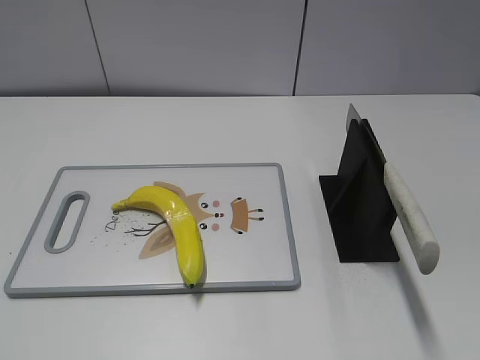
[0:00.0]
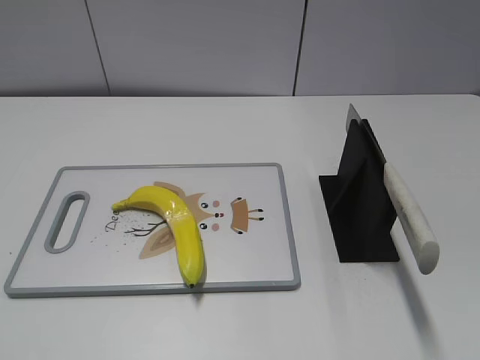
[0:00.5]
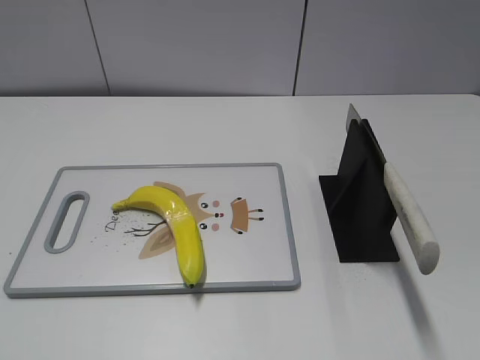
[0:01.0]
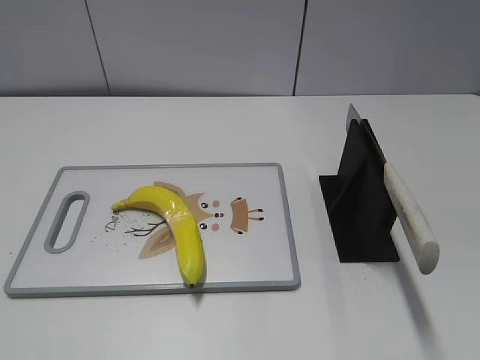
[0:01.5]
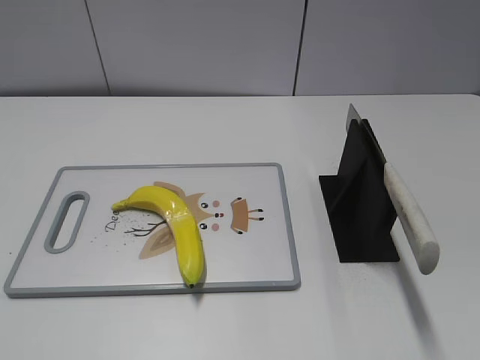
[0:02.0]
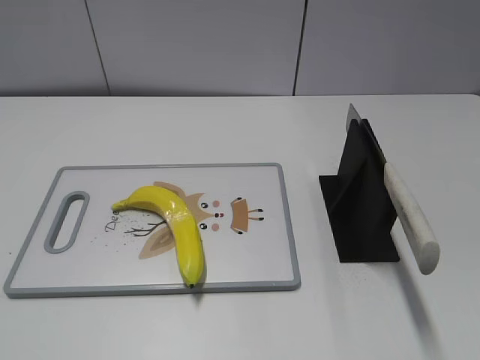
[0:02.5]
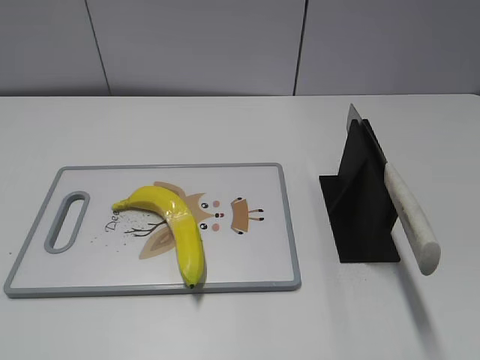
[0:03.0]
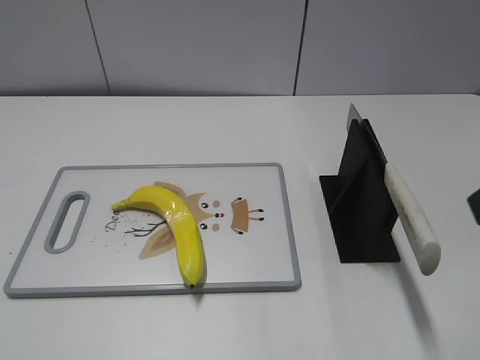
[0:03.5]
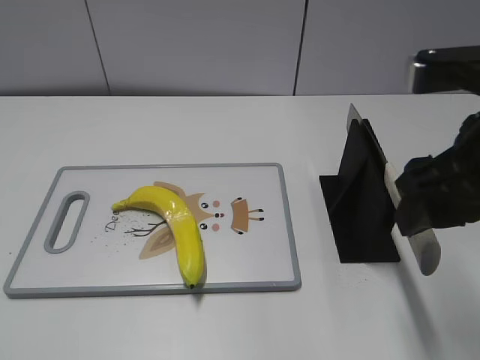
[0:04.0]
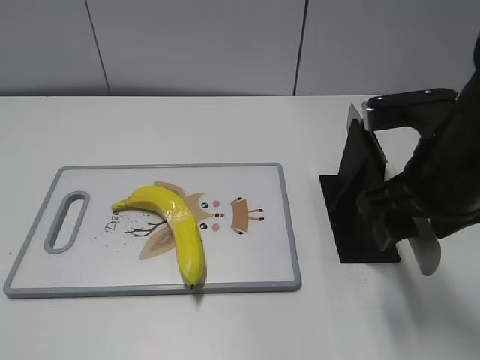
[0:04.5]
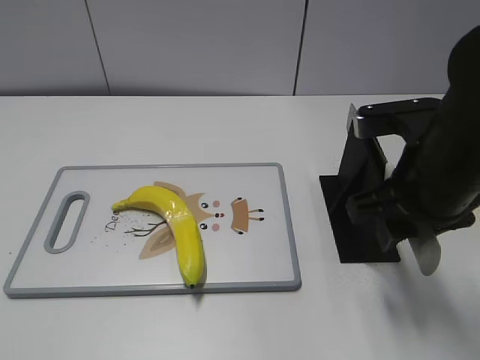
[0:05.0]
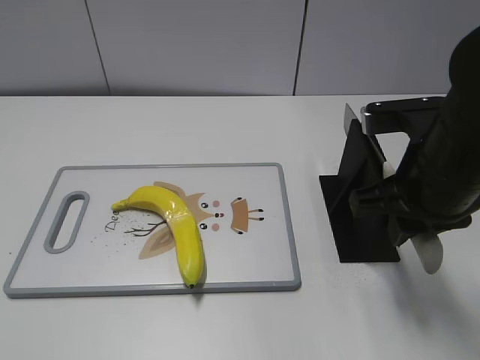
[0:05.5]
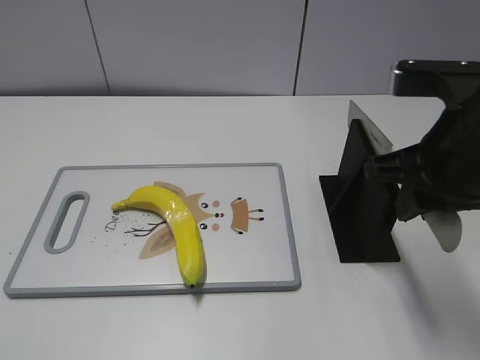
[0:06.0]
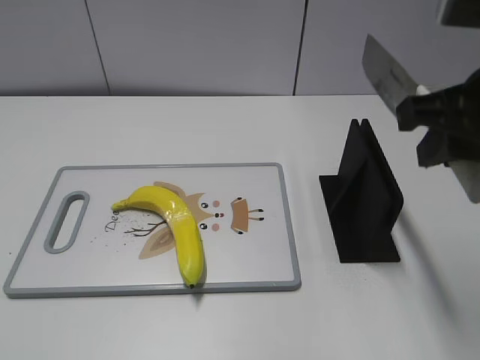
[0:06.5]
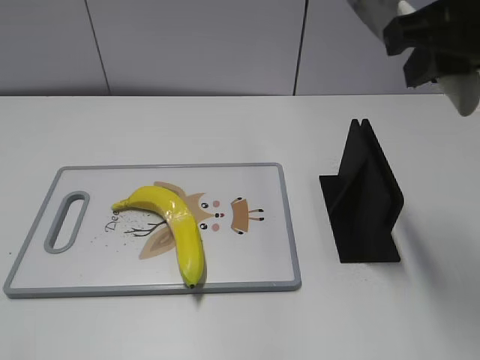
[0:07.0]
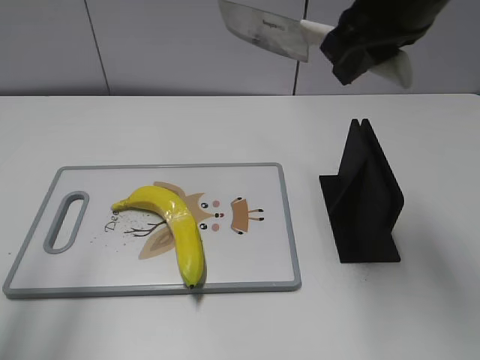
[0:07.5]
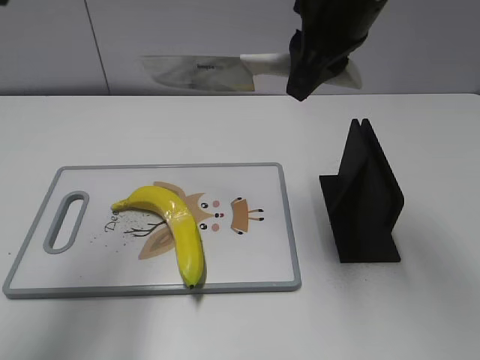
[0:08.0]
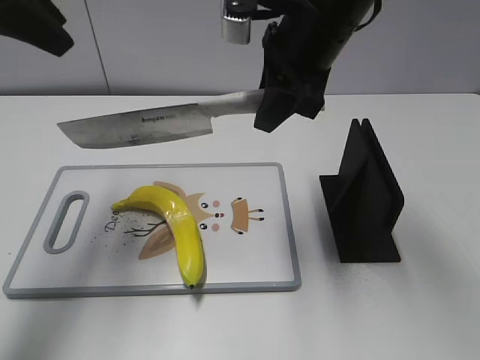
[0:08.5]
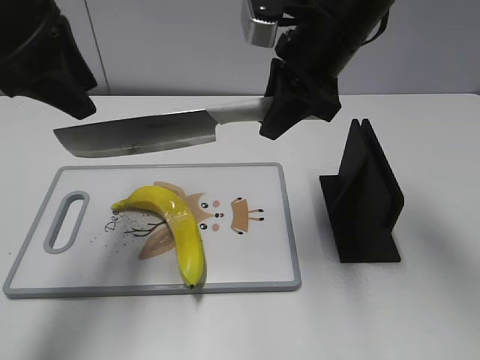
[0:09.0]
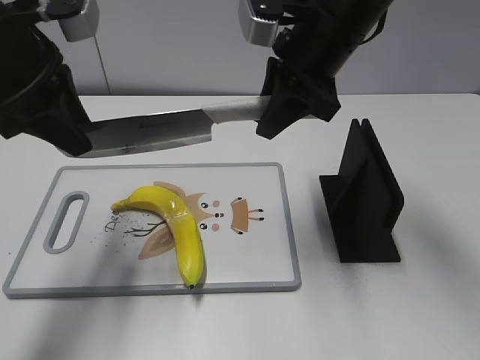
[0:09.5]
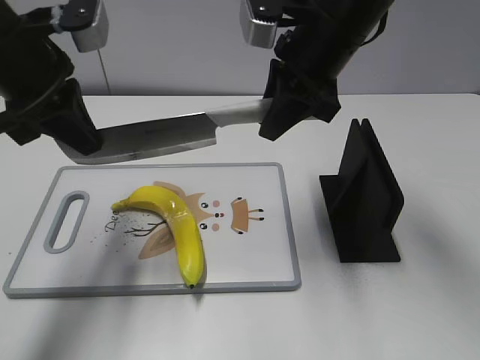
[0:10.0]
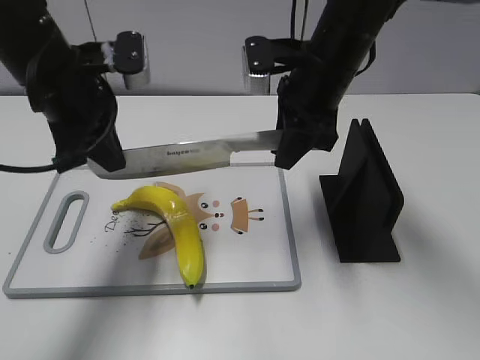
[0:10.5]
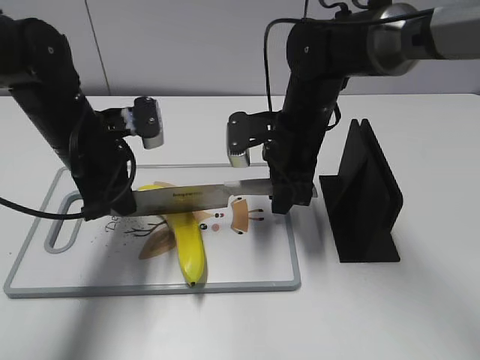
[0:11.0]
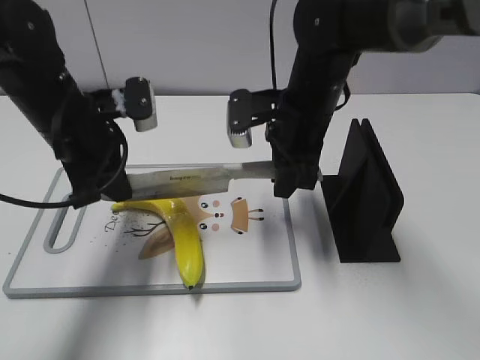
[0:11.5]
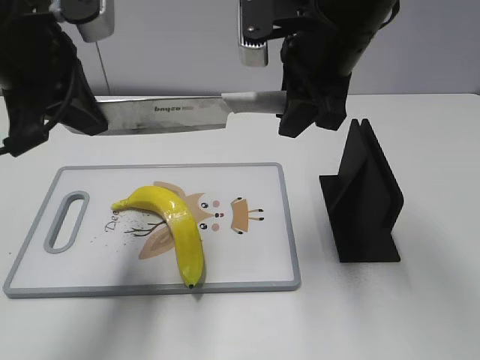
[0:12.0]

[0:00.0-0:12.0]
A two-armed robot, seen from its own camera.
Task of the whole recording: cut plastic banana.
Step, 0:00.0 to 0:06.0: Grab the knife handle with your right hand.
0:02.0 to 0:04.0: The right gripper is displaced forward and to the left by some 25 cm.
0:04.0 to 0:06.0: The right gripper closes.
0:06.0 to 0:08.0: The right gripper moves forward, to the left and upward, some 15 cm. The left gripper goes about 30 cm forward and upward.
0:08.0 to 0:10.0: The left gripper is displaced downward and forward by approximately 15 cm, and closes up; the right gripper ends up roughly 5 cm from where it was.
0:10.0 to 0:12.0: The left gripper goes downward and returns, some 10 cm each way. The right gripper goes downward and returns, some 15 cm each way.

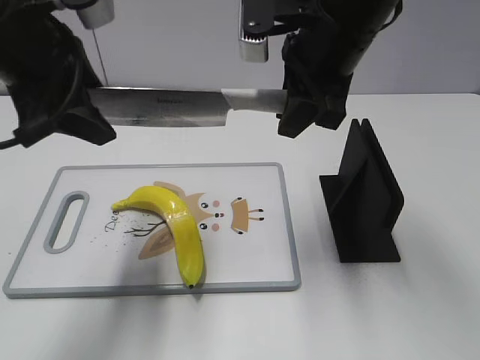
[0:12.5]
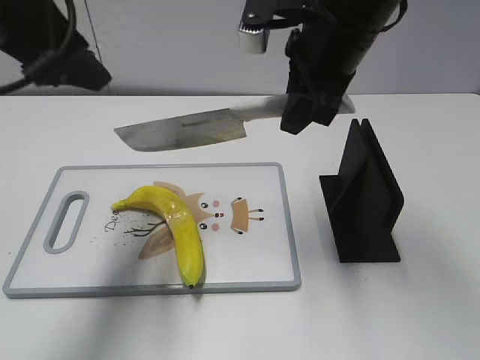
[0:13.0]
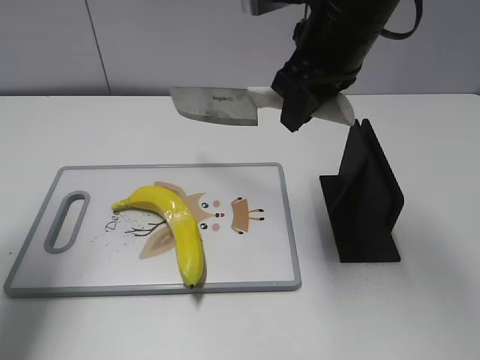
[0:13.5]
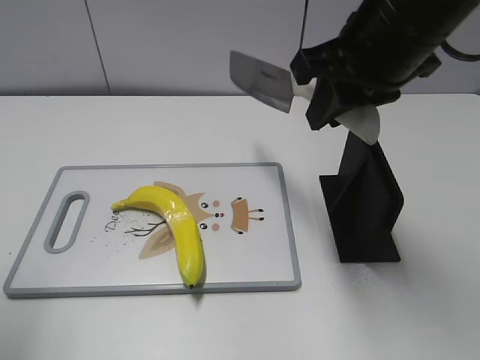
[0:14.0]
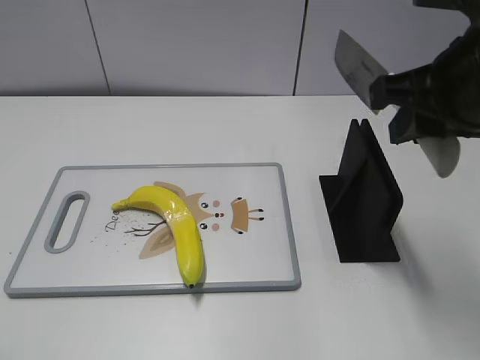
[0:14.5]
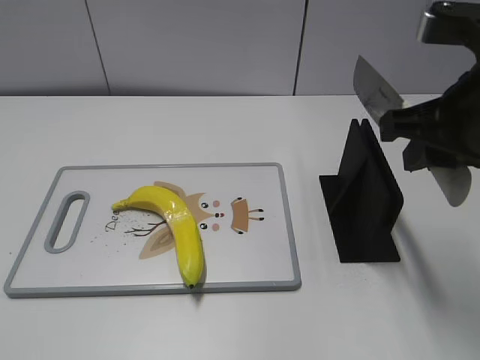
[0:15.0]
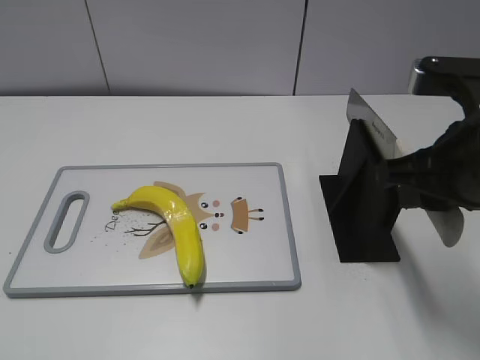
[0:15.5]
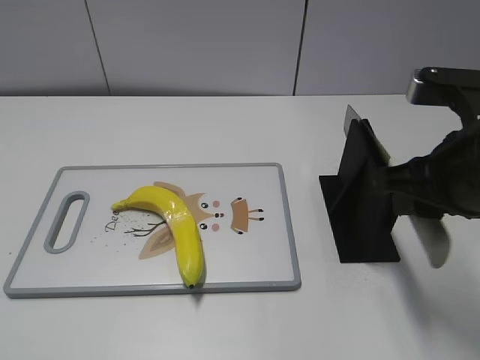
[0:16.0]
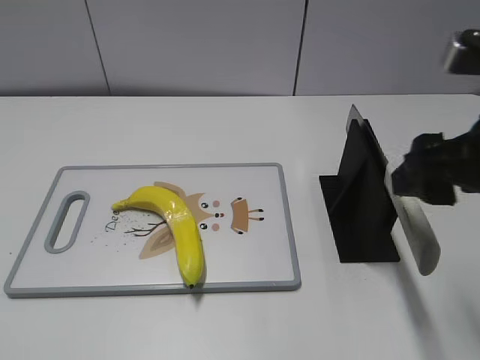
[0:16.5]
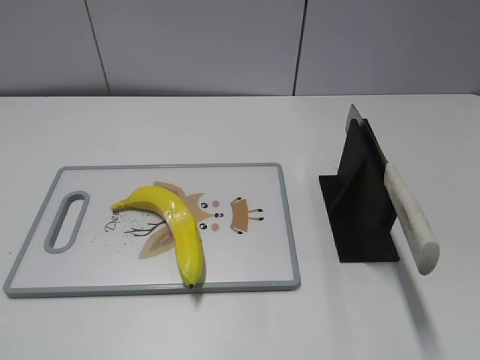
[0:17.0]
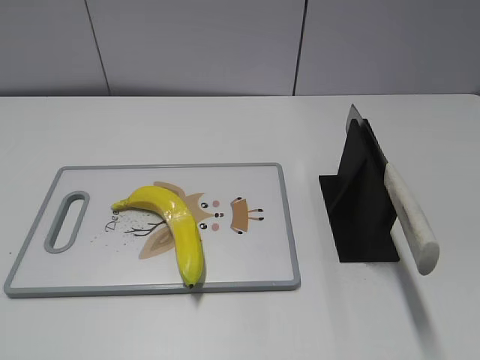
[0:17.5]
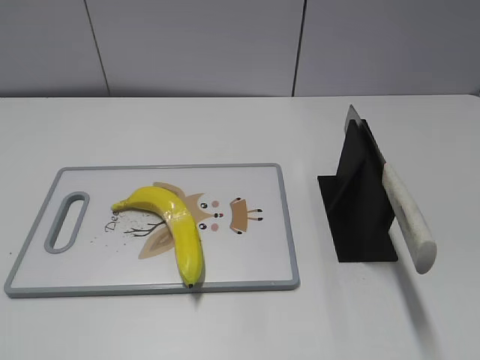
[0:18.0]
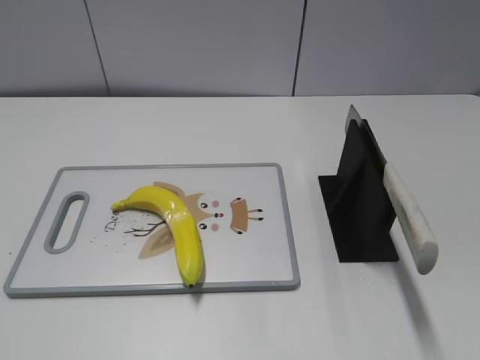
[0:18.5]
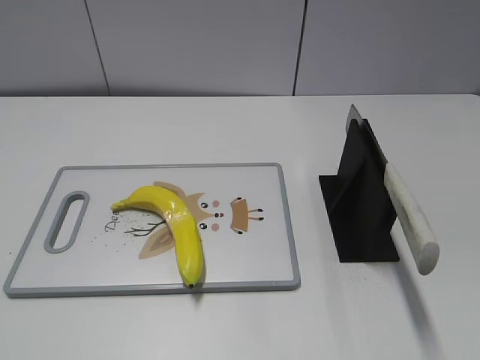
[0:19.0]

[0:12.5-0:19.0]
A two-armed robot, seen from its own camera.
Task of the whole recording: cut plastic banana.
Step, 0:14.0 to 0:14.5: Lift the knife with your right hand.
Step, 0:15.0 to 0:19.0: Place the knife on the storage rack with your right hand.
0:12.5 to 0:14.5: The left gripper goes about 25 cm backward and to the left. The right gripper is displaced backward and to the right by roughly 15 cm.
0:14.5 to 0:17.0: The right gripper shifts roughly 20 cm backward and to the right, and opens its fingers.

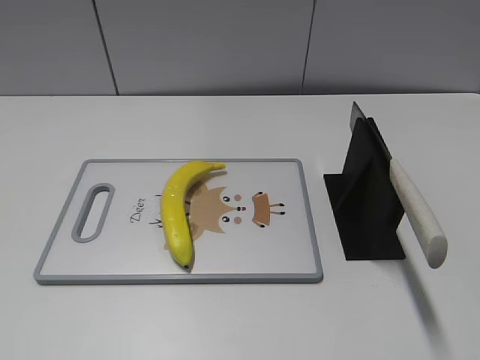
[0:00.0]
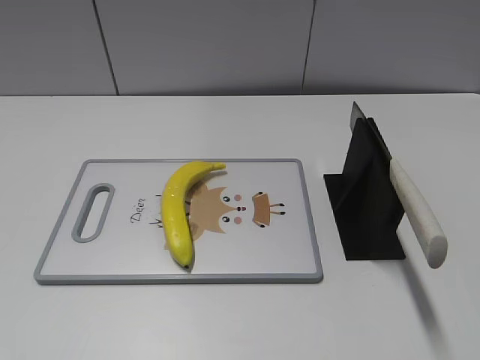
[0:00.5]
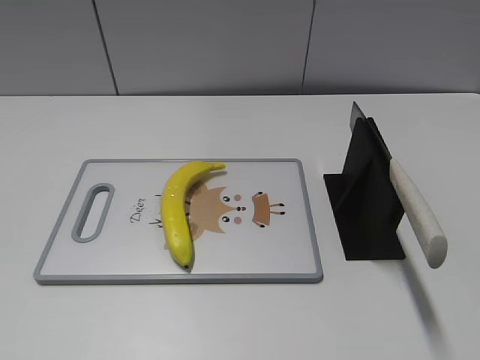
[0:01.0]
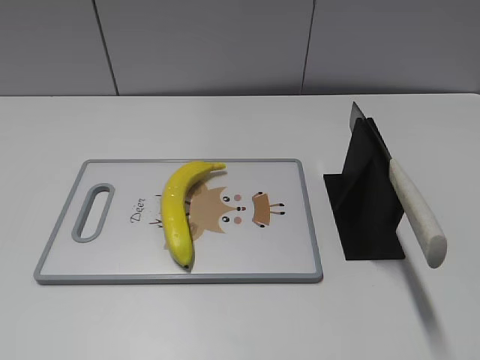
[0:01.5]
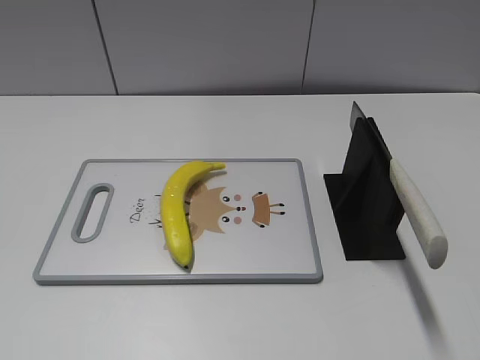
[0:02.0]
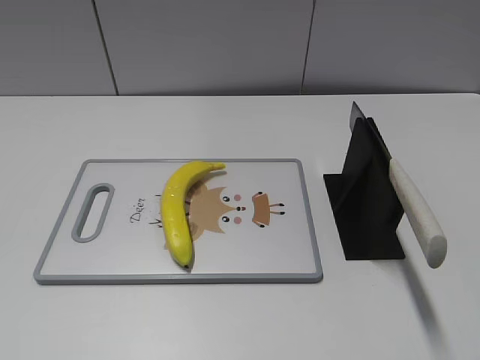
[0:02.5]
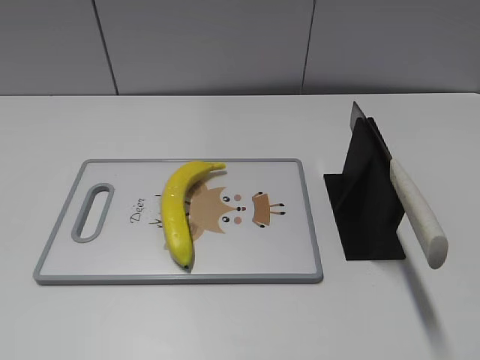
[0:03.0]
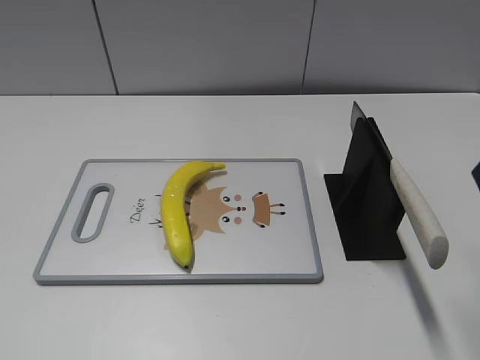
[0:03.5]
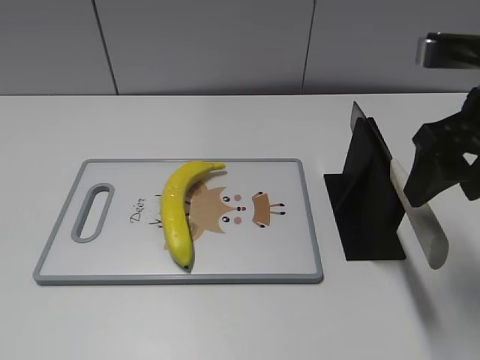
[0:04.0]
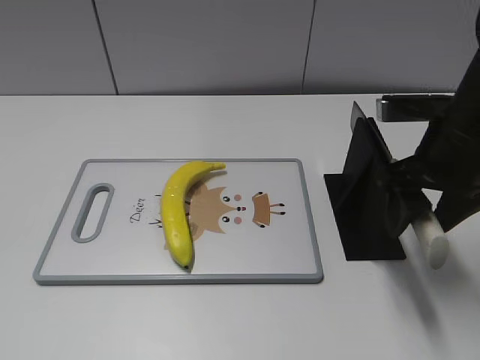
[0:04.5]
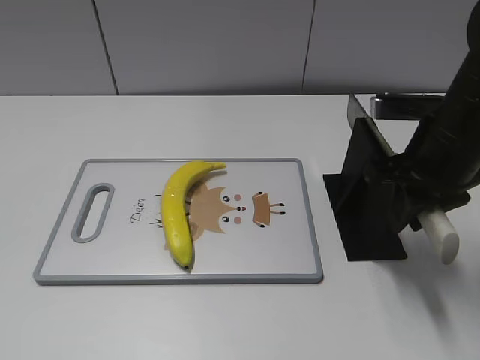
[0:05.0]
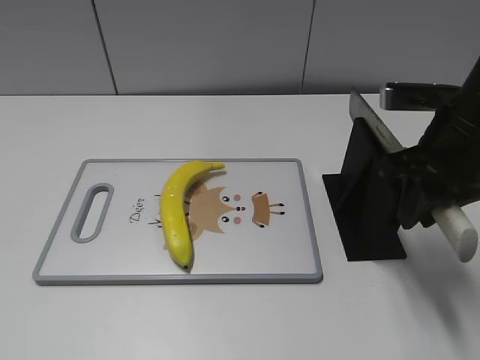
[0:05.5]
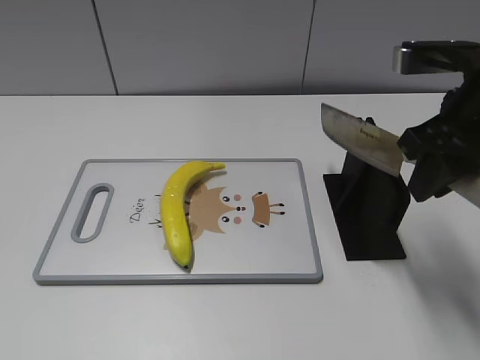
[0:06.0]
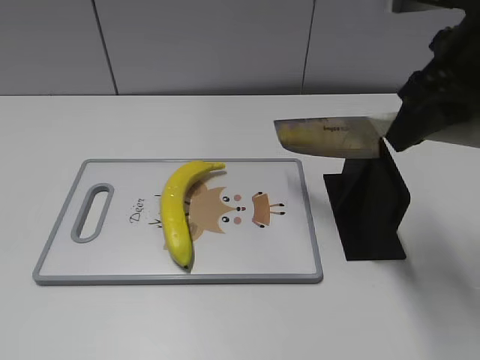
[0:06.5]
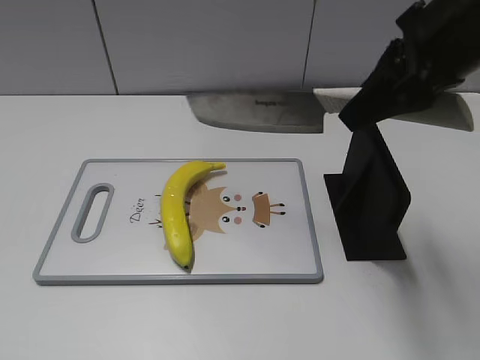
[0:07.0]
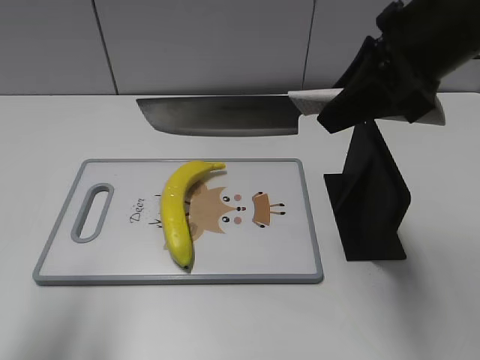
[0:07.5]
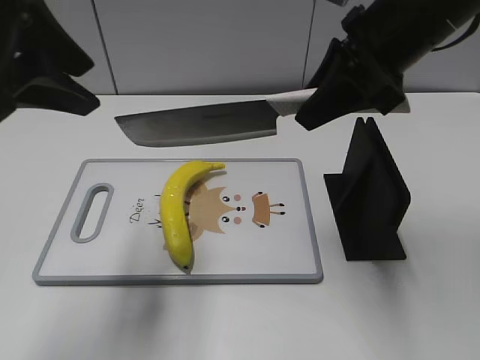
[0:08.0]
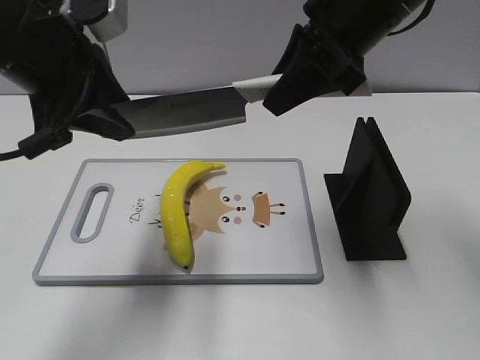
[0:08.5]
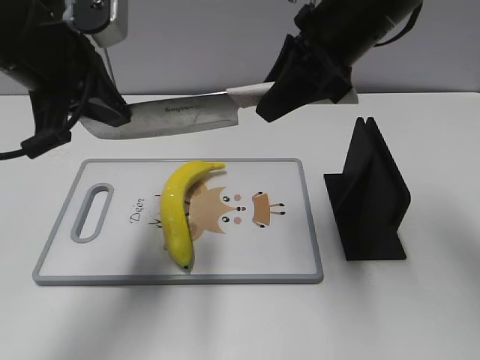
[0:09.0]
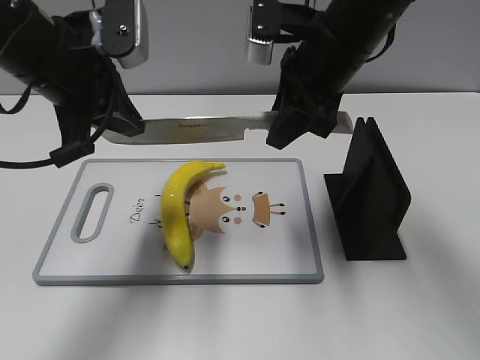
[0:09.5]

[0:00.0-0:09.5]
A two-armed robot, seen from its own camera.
Task of the whole recording: cut plastic banana.
Step, 0:00.0 to 0:06.0: Grab the knife handle with your right hand.
0:02.0 to 0:04.0: The right gripper heads forward, covering about 25 cm.
0:04.0 to 0:05.5: The right gripper shifts by some 5 cm, and closes.
0:05.5 to 0:07.5: The left gripper moves forward, roughly 15 cm. Meanwhile the right gripper heads upward, covering some 10 cm.
0:07.5 to 0:09.5: The left gripper moves forward, to the right and downward, approximately 20 cm, and closes up, while the right gripper goes some 10 cm forward, to the left and downward.
